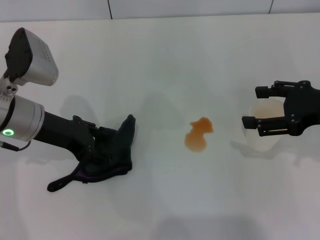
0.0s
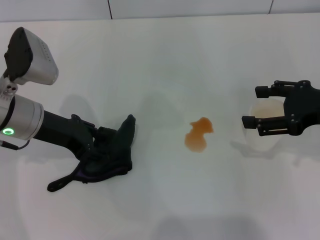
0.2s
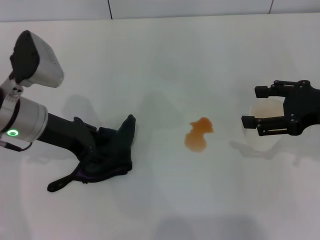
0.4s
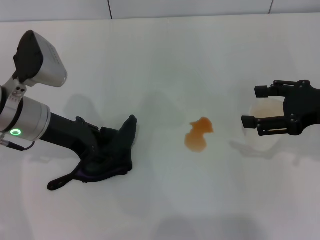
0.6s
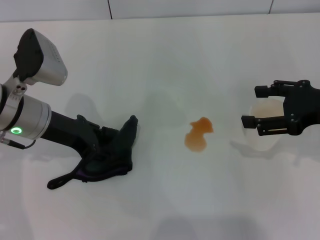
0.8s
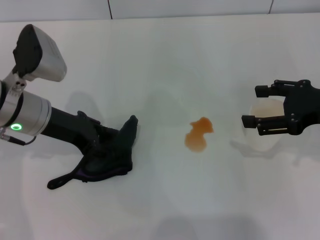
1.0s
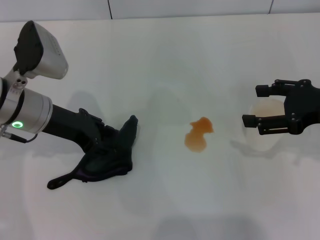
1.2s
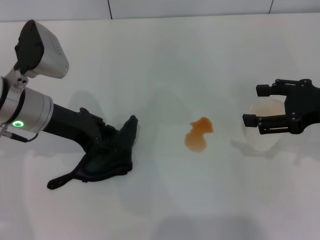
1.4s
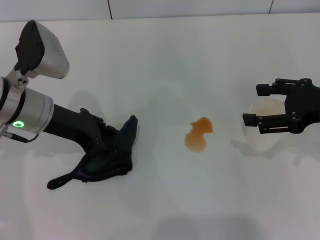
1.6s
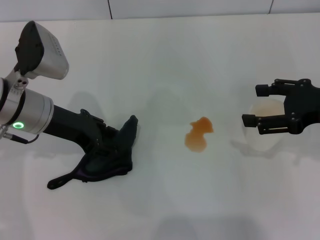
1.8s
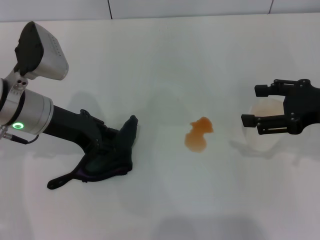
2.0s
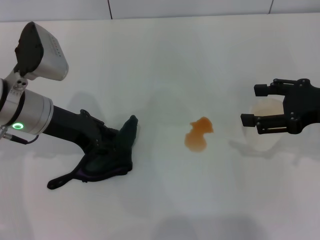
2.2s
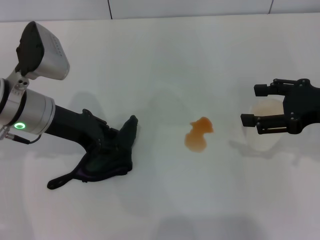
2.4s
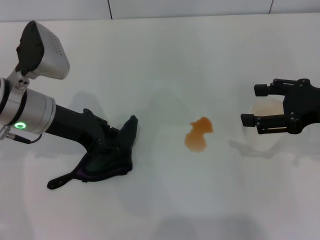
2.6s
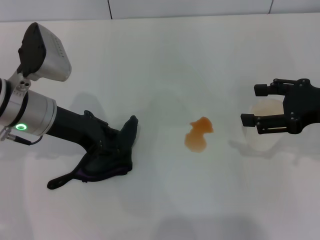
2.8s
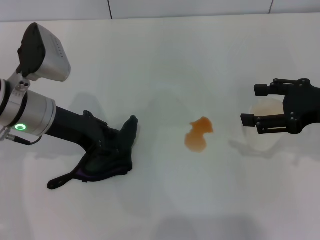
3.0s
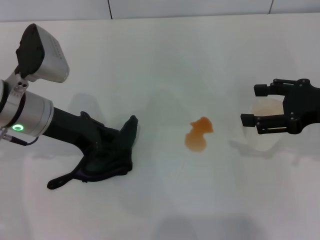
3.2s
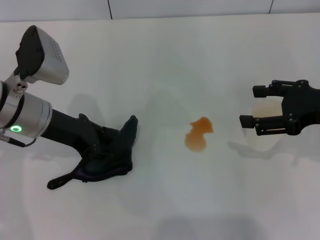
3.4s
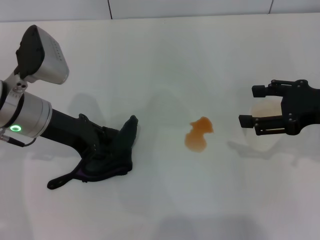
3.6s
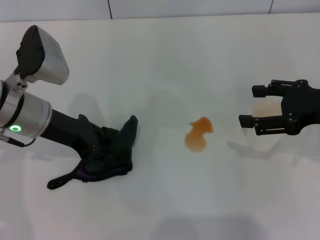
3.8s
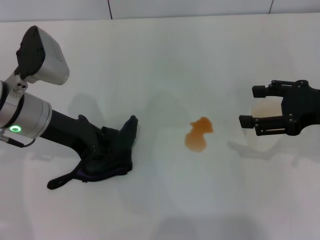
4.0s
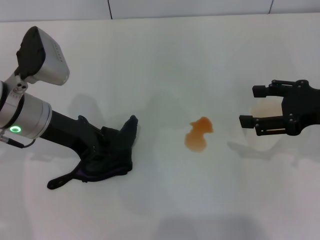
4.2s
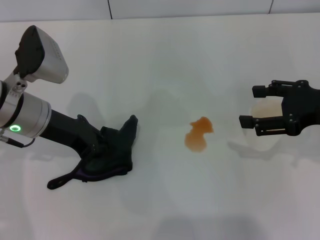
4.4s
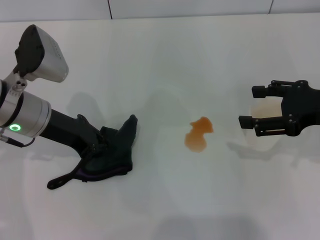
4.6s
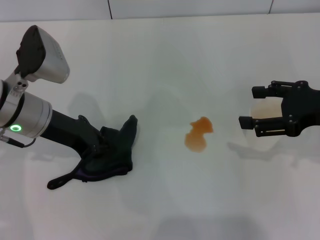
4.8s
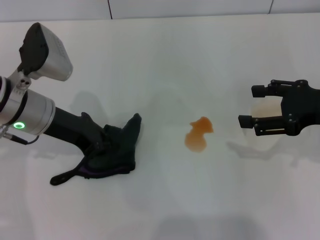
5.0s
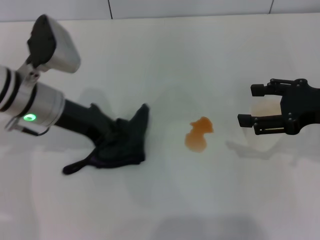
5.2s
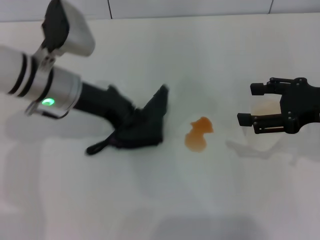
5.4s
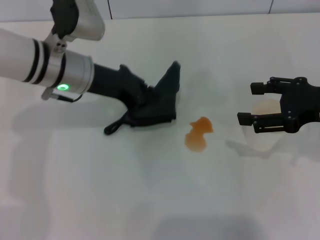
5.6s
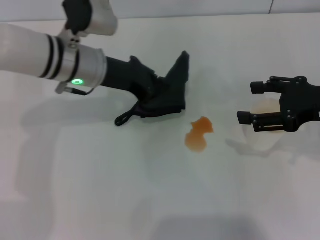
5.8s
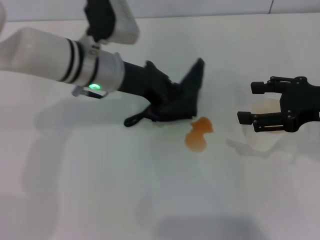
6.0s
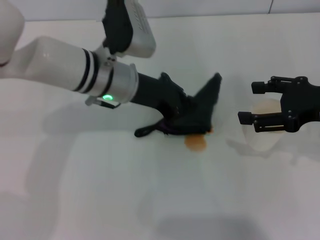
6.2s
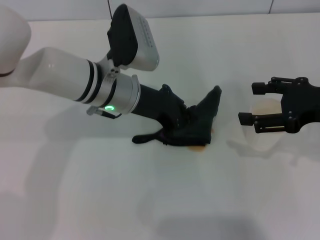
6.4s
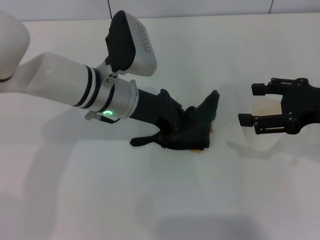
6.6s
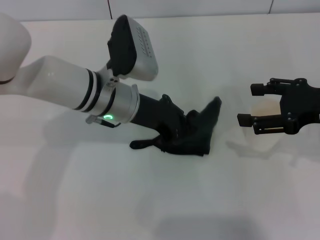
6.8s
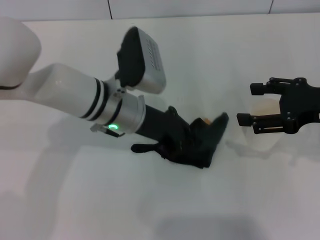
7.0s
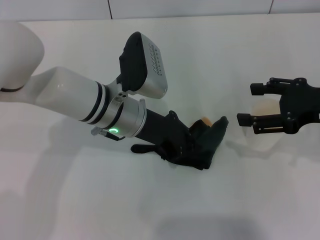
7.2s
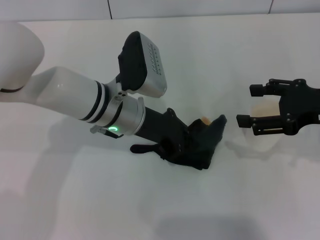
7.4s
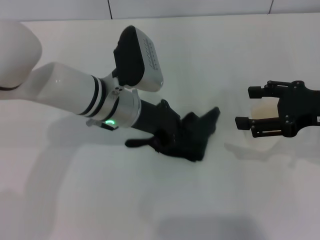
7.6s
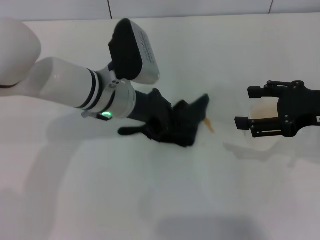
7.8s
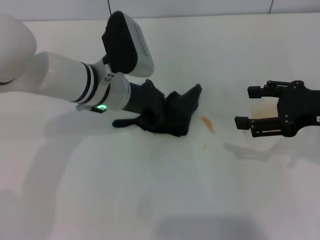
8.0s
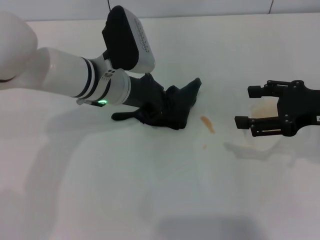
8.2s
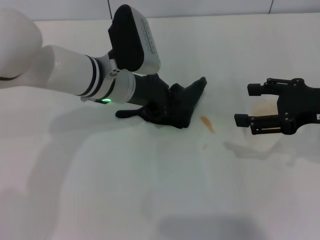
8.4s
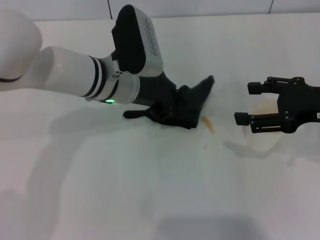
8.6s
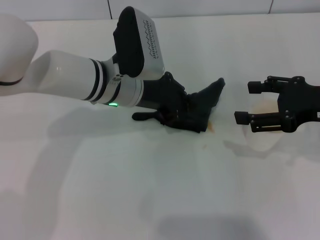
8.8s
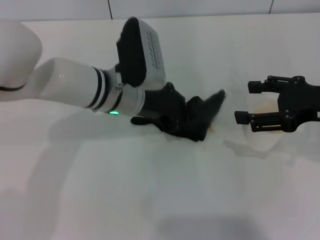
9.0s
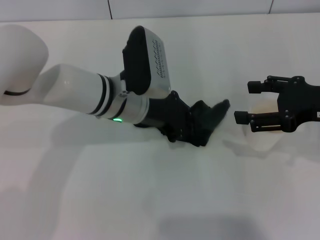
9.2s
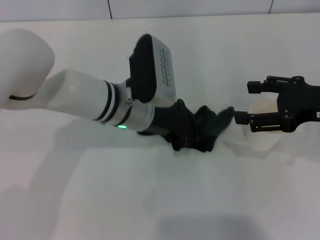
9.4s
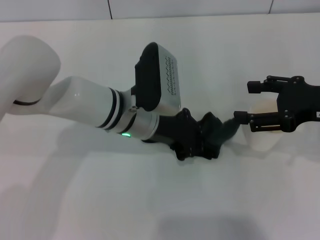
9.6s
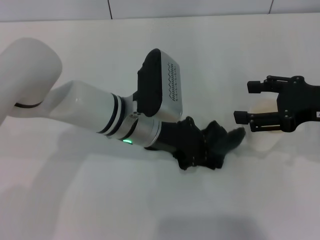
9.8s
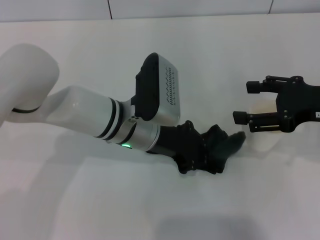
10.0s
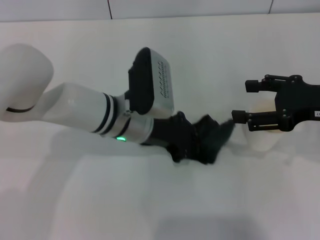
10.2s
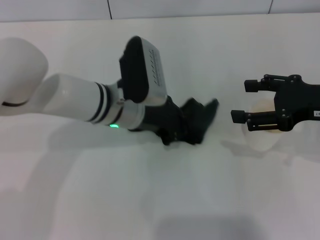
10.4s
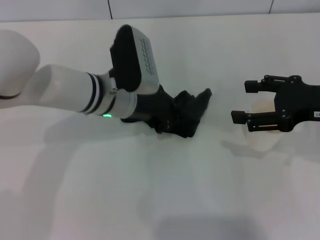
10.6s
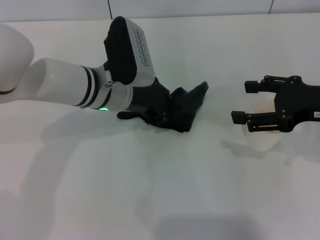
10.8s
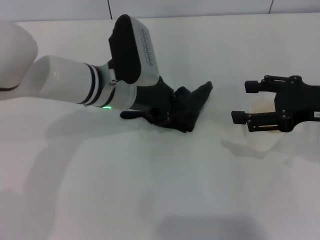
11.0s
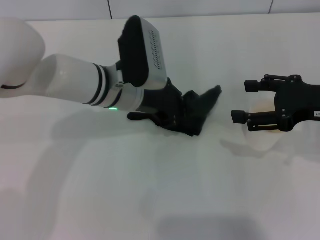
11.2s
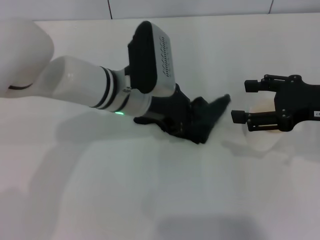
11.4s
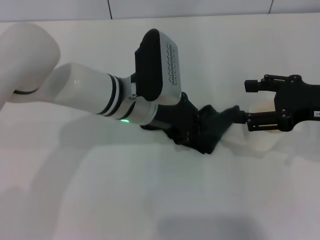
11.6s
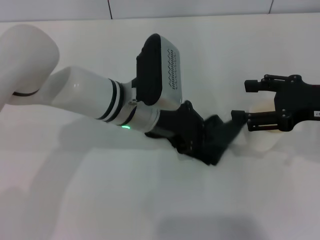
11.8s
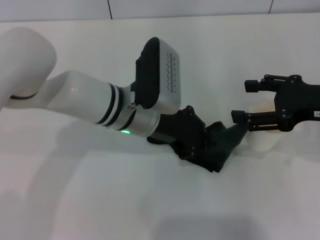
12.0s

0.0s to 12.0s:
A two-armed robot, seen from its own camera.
Step, 0.0s to 5.0s: Grasp the rag with the left gripper.
0.0s to 1.6s: The grippers move only a little.
1.6s to 4.4s: The two grippers keep their place.
4.4s to 6.0s: The left gripper moves to the right, approximately 10 cm.
6.0s to 7.6s: The left gripper ends up roughly 5 cm from where it was.
7.6s to 12.0s: The grippers make only small movements.

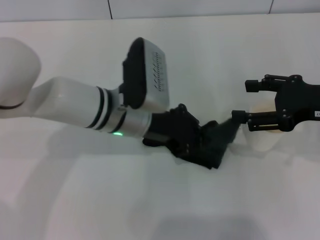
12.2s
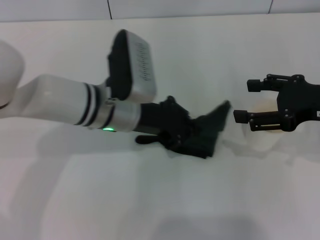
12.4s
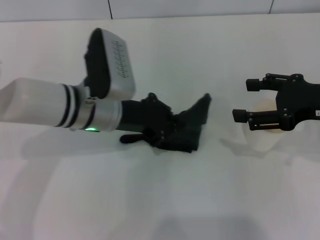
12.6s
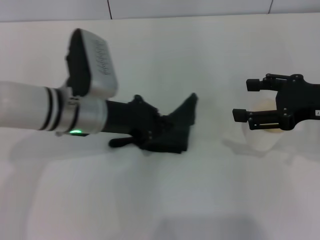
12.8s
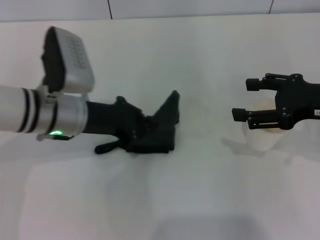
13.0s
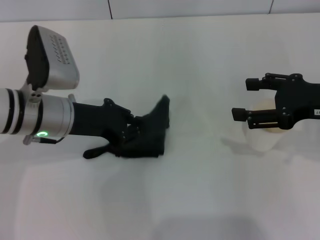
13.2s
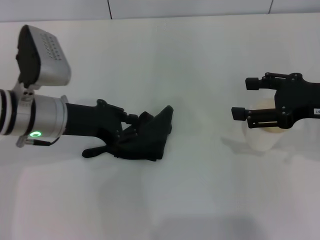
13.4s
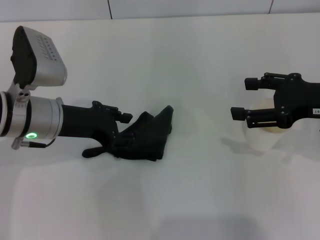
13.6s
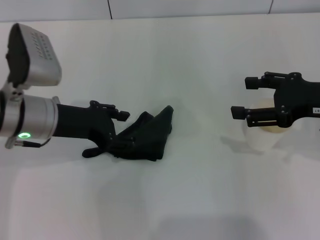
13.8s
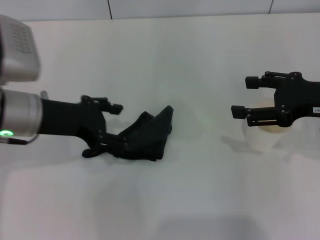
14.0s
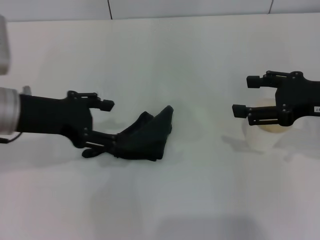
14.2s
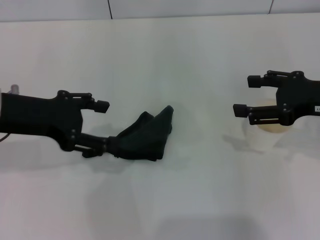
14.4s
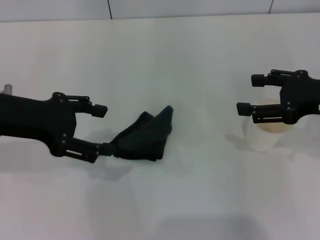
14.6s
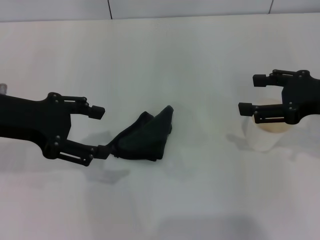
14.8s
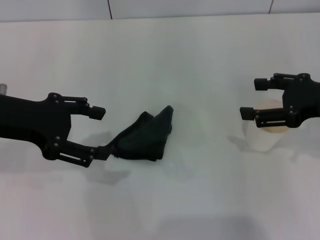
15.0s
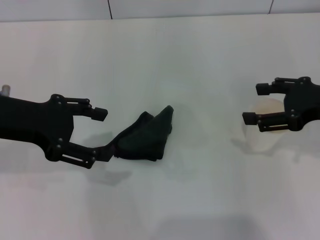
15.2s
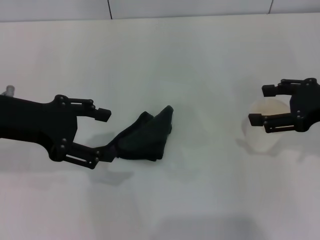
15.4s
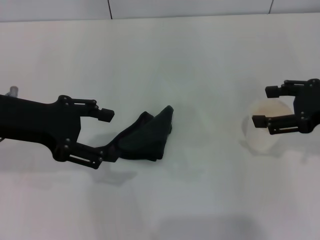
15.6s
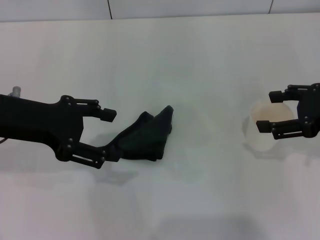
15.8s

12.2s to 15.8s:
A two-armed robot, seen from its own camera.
Step, 13.2s to 13.8s: Place the rag on the table with the left gripper.
12.2s to 14.0s: The left gripper shifts about 15 cm to the left, and opens up.
14.0s to 15.8s: The left gripper ends up some 5 cm from where it was.

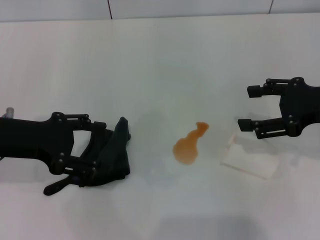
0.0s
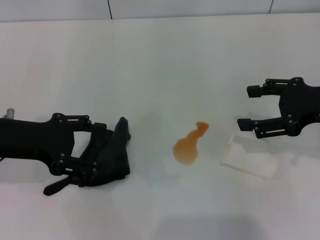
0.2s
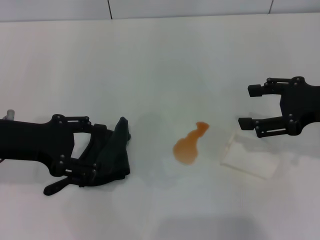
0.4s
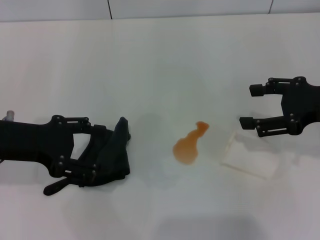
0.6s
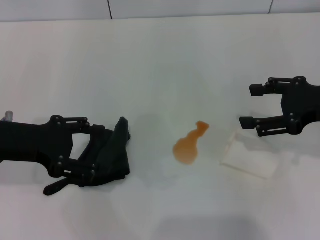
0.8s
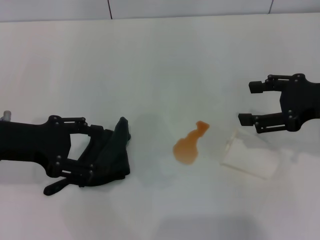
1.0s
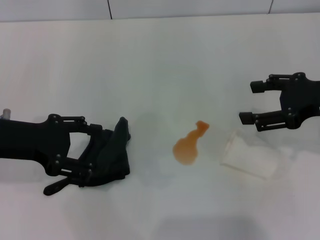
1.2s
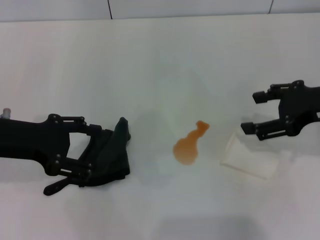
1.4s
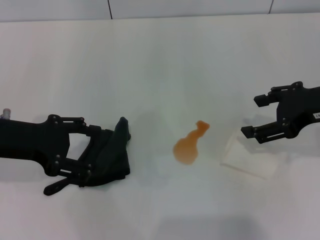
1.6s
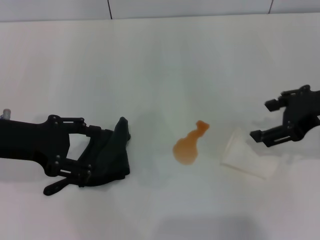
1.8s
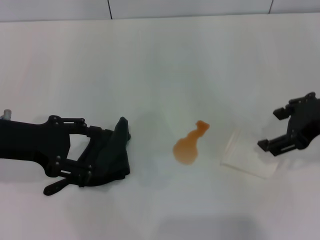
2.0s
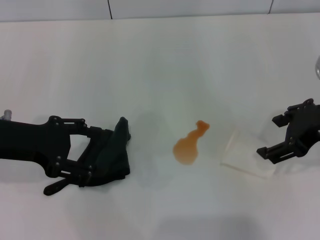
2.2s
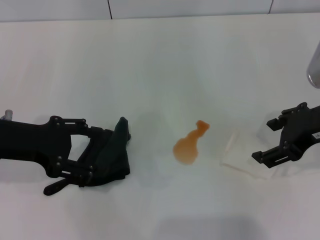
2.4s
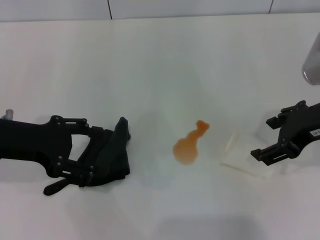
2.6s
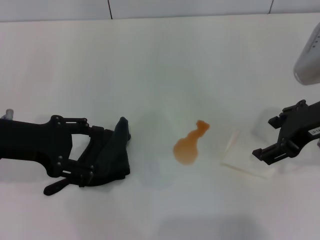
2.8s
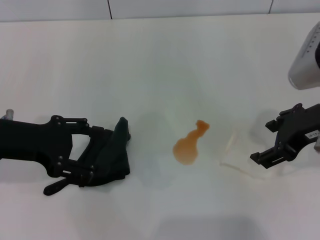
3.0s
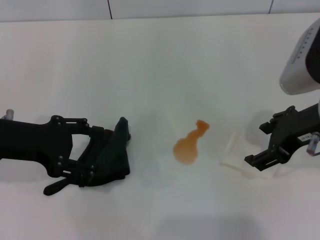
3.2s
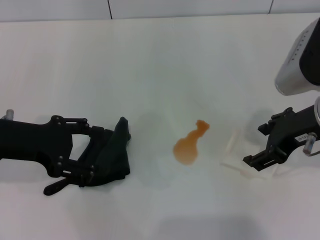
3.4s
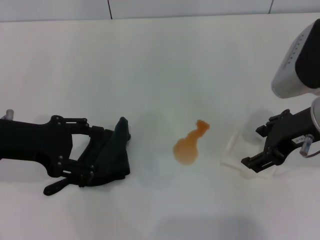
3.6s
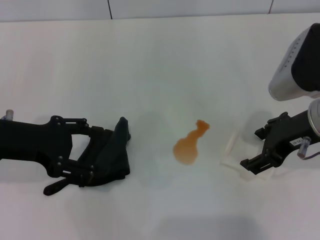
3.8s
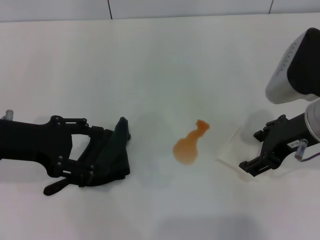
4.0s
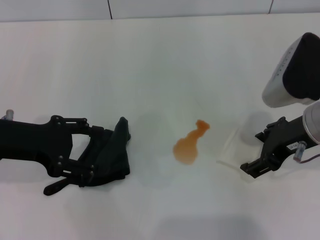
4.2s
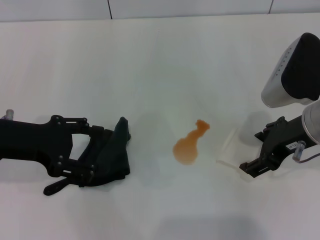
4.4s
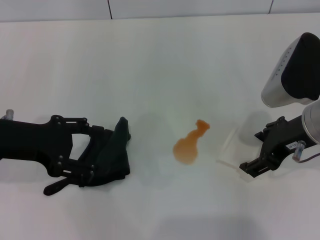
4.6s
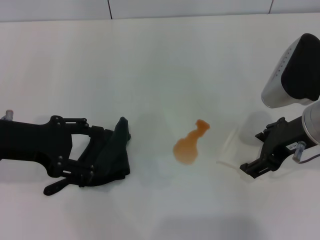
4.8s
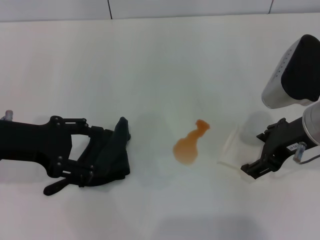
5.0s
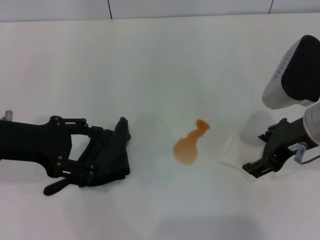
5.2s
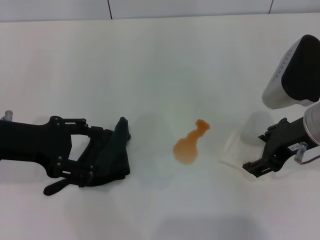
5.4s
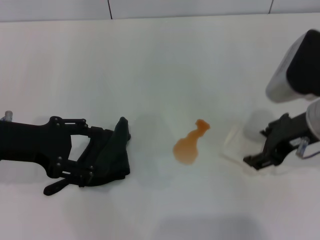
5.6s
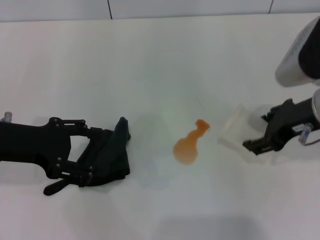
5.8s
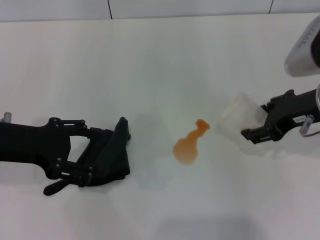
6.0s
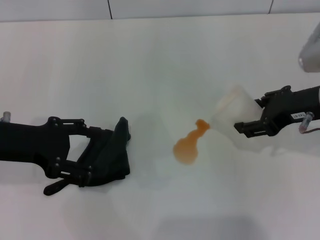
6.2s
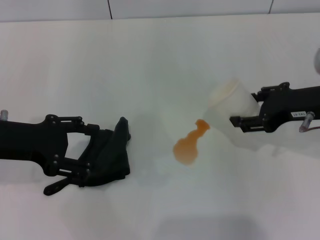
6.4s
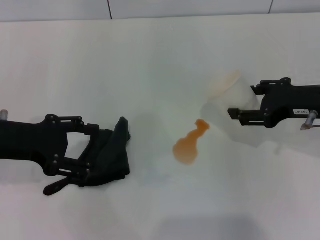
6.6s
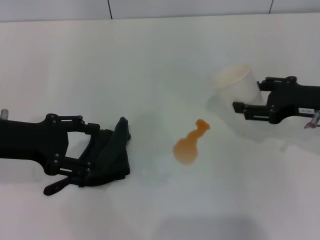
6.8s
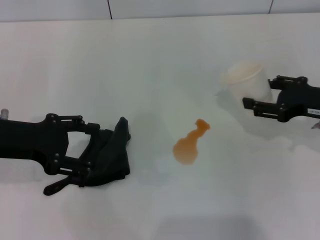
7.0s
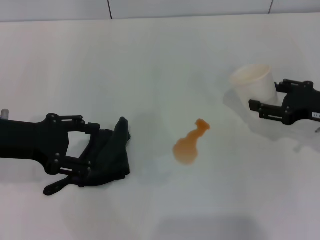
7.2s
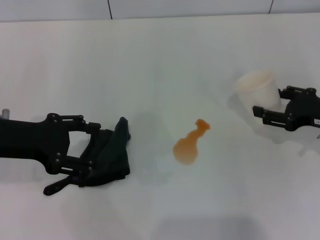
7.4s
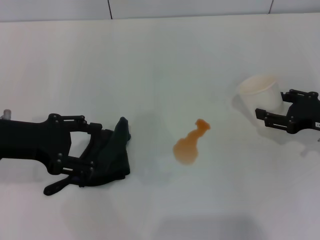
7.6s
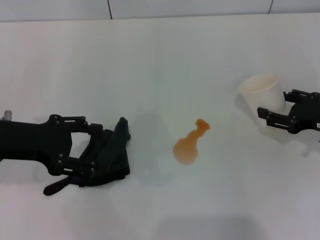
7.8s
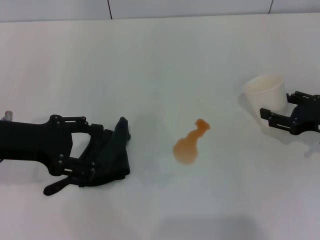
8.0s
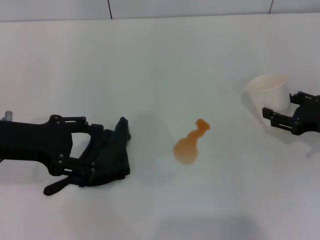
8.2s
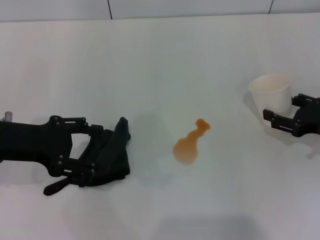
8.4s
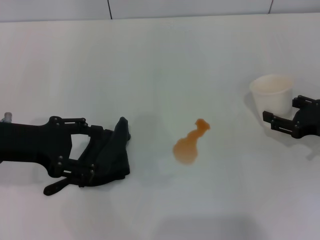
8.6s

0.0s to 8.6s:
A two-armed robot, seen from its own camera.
Step, 0.0s to 5.2s: Grasp the paper cup with the right gripper.
0.0s to 1.4s: The grippers stay close to where they were, moving slightly.
1.4s to 2.8s: The right gripper goes approximately 5 cm to the left.
2.8s to 4.4s: The grippers make only small movements.
4.4s to 5.8s: The right gripper closes up.
5.8s to 7.2s: The right gripper travels to the right and downward by some 10 cm.
7.2s to 8.6s: The right gripper moves some 5 cm.
